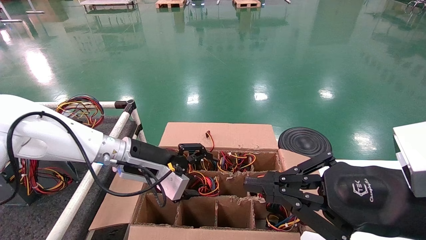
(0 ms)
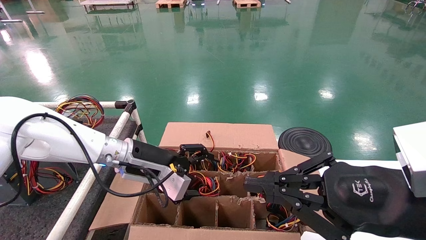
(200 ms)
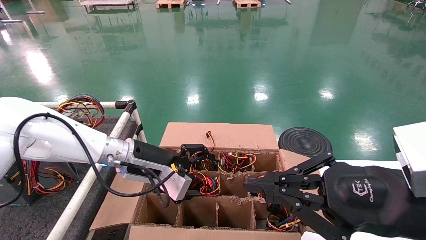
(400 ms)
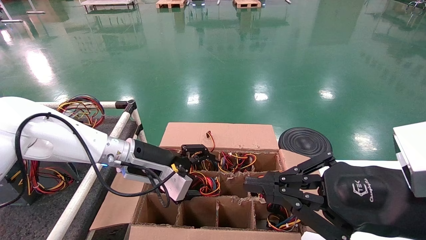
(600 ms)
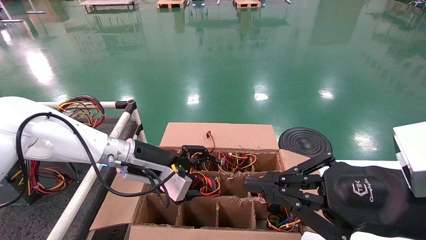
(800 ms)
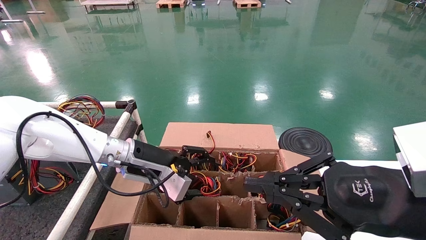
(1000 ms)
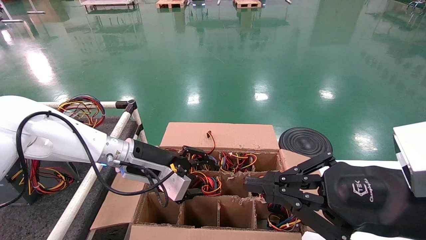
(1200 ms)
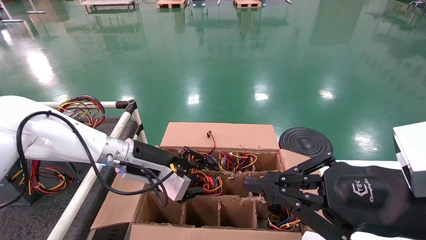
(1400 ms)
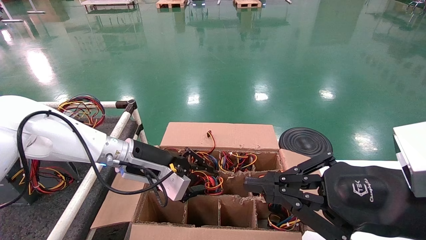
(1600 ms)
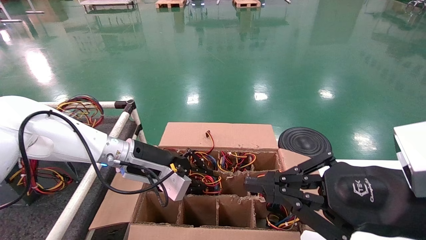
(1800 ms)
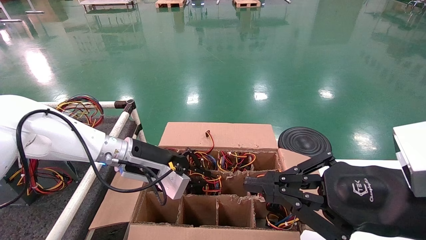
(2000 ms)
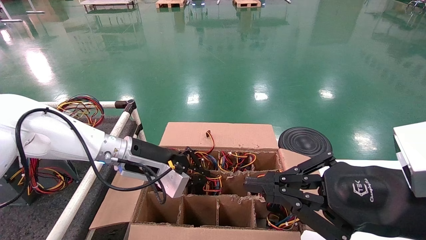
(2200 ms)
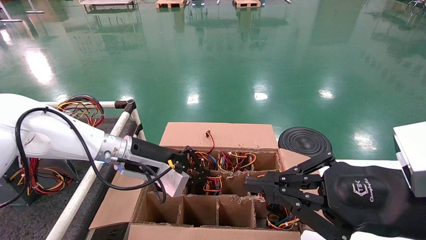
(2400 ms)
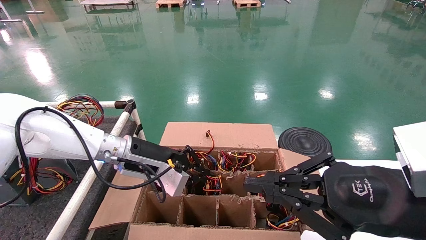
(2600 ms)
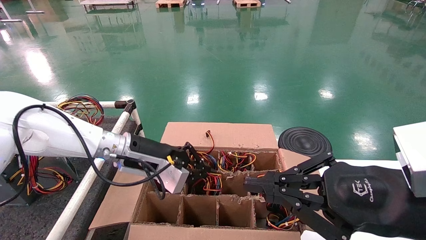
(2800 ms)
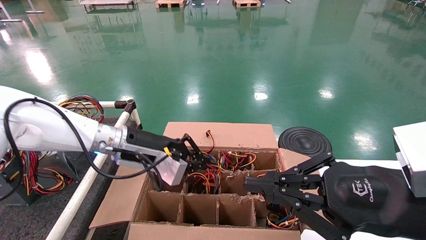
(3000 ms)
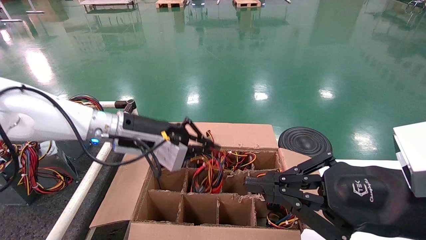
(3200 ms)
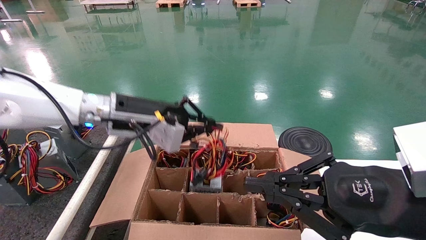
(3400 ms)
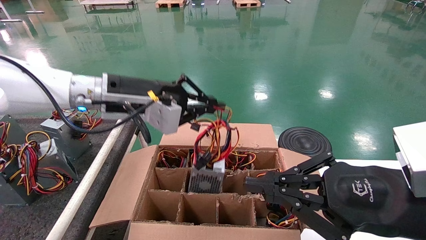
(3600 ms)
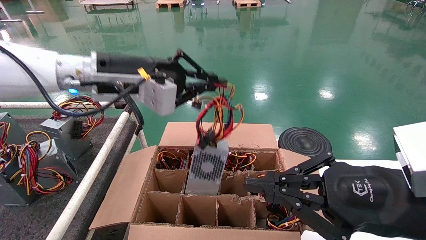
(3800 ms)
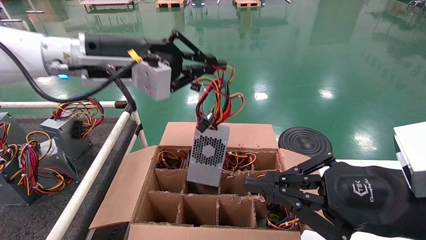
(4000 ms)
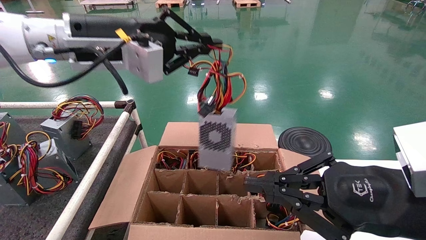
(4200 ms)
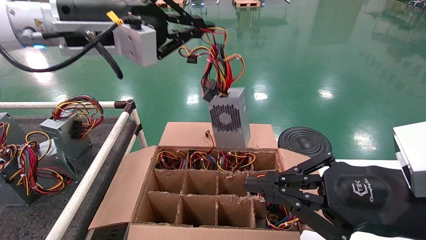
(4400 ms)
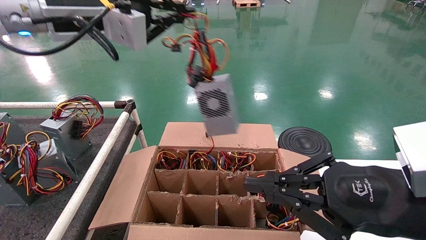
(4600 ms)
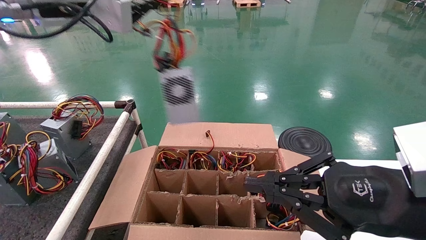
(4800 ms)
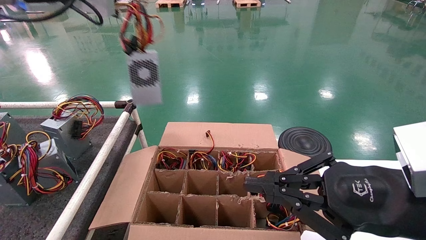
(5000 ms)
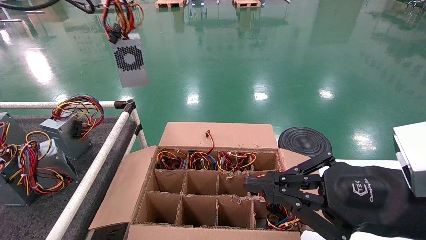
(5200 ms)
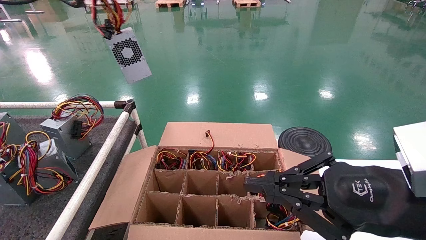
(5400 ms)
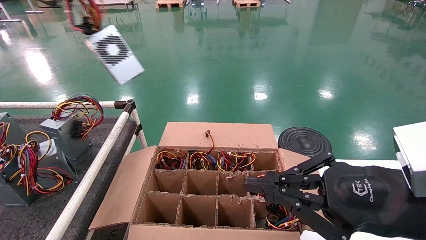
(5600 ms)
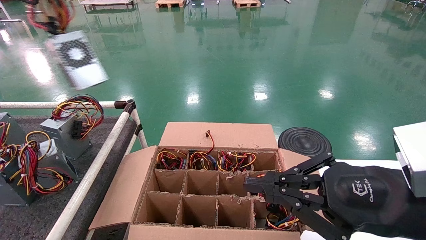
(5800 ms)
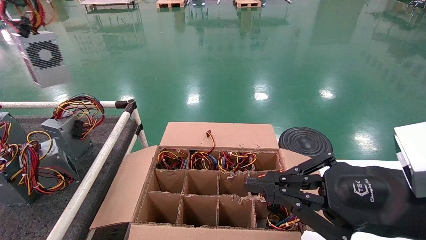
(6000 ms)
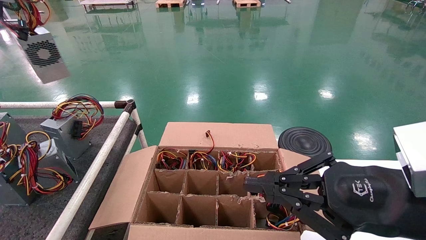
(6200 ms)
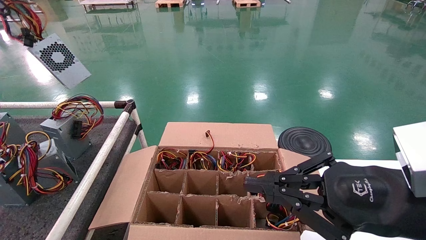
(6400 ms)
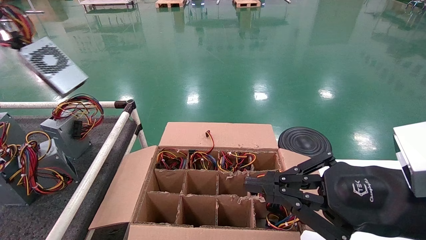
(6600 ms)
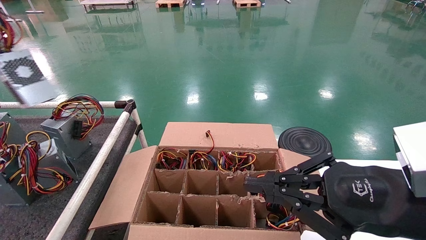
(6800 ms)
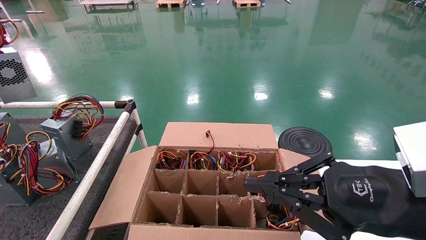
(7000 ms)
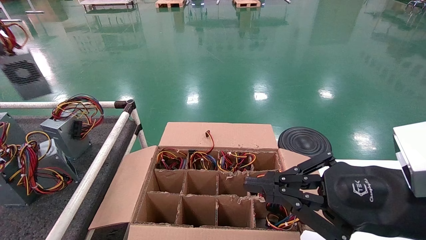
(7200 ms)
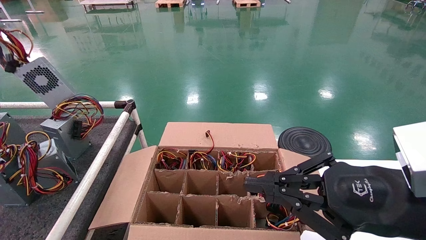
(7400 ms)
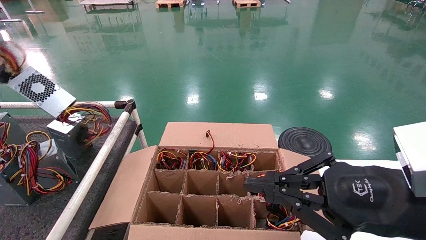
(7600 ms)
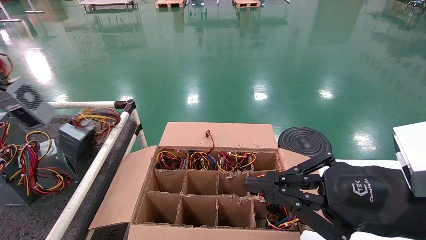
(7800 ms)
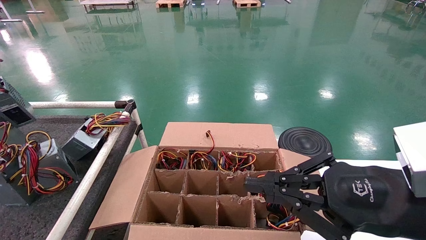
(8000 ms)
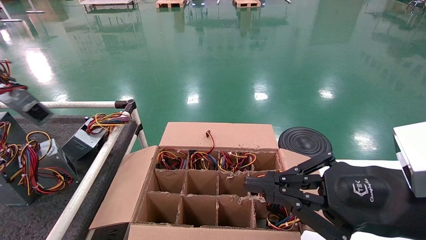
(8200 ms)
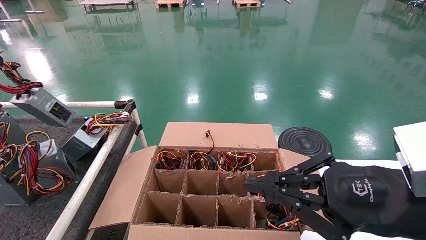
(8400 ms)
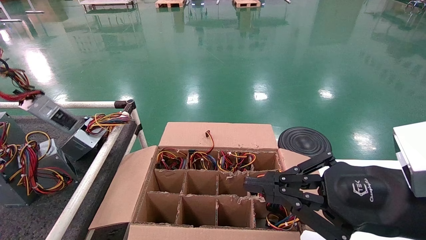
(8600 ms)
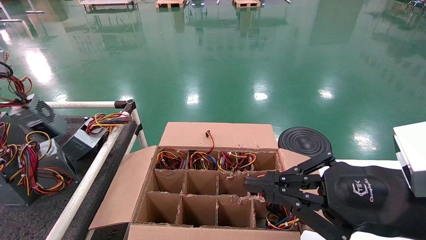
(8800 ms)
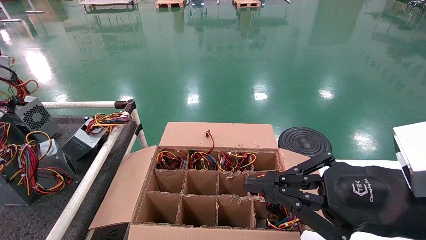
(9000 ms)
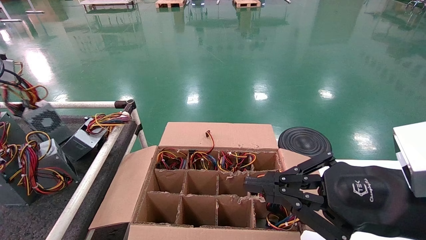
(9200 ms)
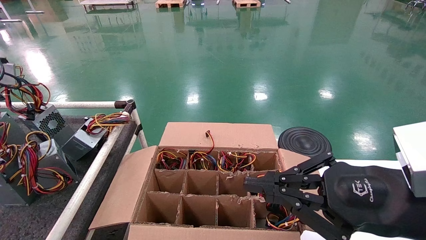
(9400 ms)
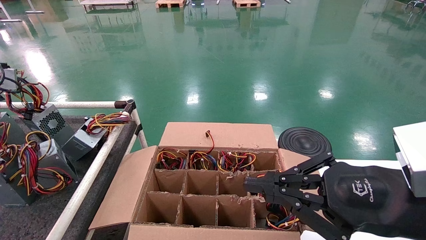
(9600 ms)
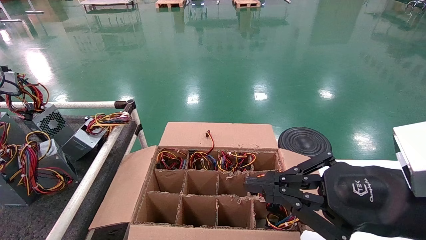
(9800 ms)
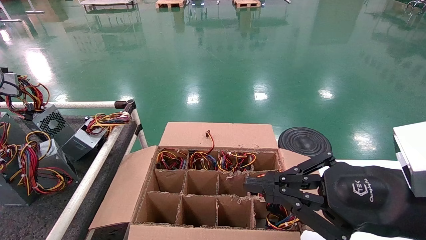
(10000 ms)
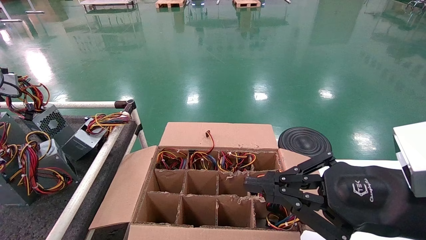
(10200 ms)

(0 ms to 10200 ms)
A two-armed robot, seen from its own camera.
Step, 0 ms - 2000 ms: Grab and lift the power supply from the large box.
0 ms - 1400 ms: Both grippers stay put.
1400 ms - 3000 ms: The left gripper closes.
3000 ms - 4400 ms: The left gripper travels upward by some 20 cm.
4400 ms - 5800 ms: The left gripper is displaced to the left and upward by some 25 cm.
5800 ms - 7200 ms: The left gripper moves to the left, approximately 10 cm.
7200 ms - 8800 ms: The left gripper moves downward, about 10 cm.
8800 ms - 10200 ms: The grippers stay close to where they were, moving slightly.

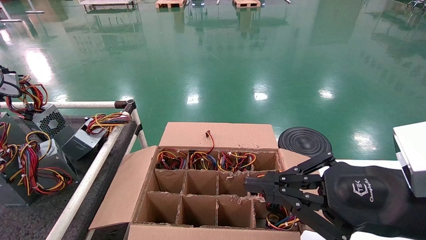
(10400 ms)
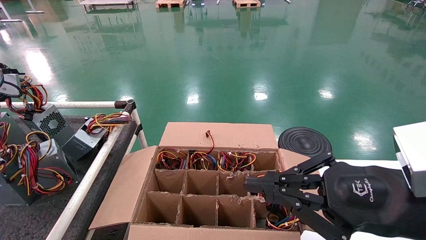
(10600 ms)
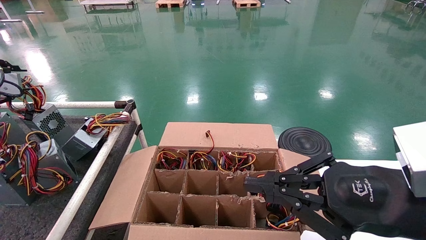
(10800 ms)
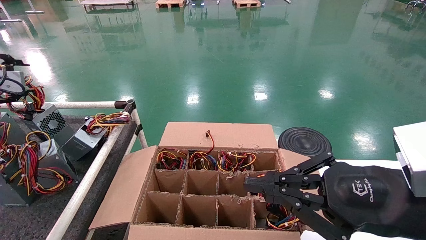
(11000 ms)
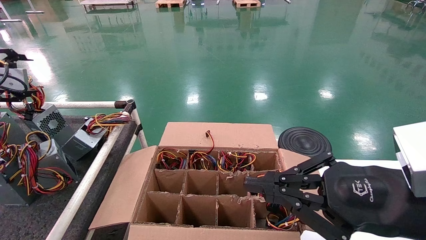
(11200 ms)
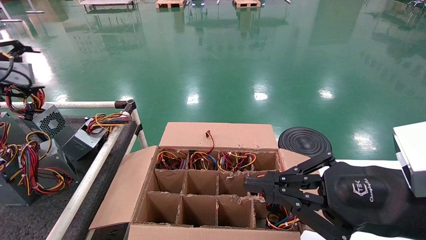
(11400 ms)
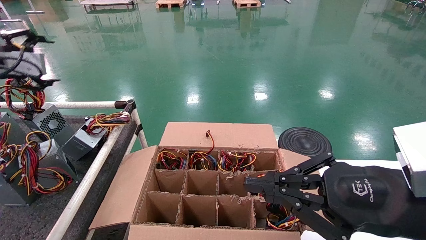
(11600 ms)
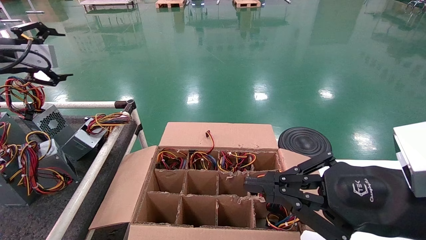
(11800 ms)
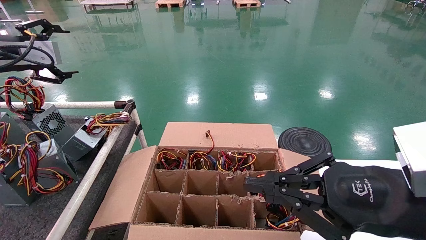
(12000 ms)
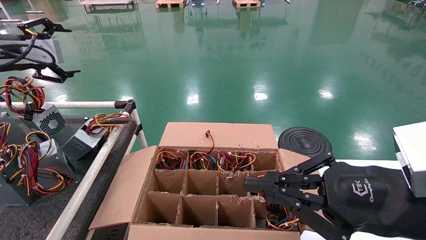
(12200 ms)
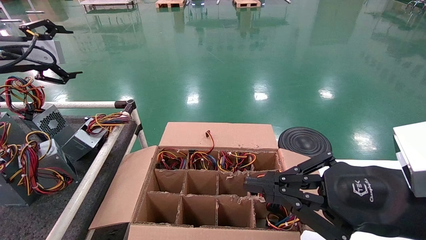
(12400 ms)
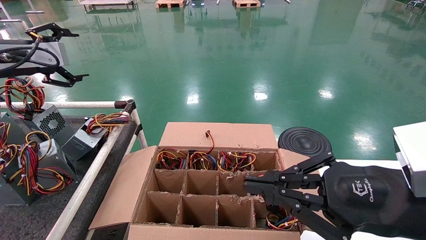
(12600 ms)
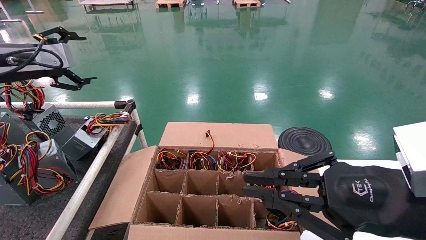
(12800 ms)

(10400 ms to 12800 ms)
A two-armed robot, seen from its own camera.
10400 ms - 11600 ms: The left gripper heads to the right, covering about 5 cm, and opens up.
11600 ms - 12800 ms: The grippers move only a little.
